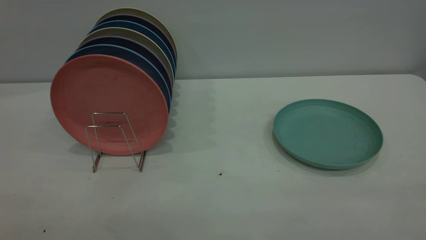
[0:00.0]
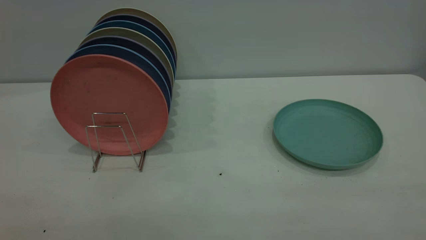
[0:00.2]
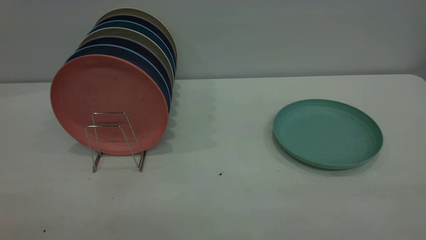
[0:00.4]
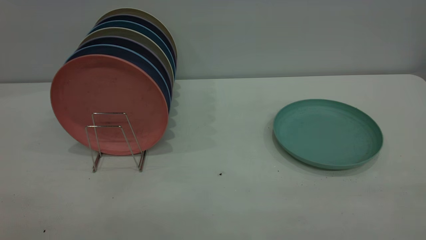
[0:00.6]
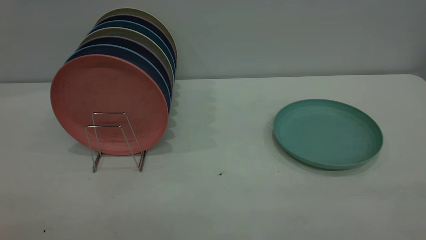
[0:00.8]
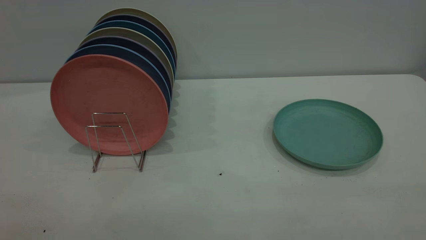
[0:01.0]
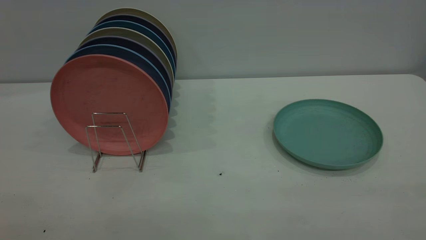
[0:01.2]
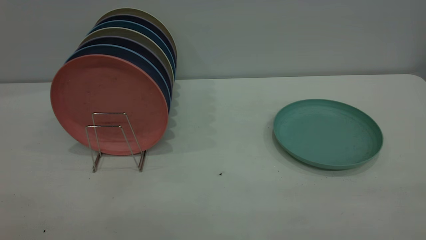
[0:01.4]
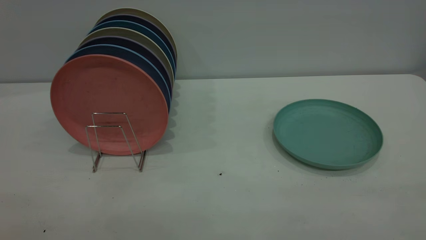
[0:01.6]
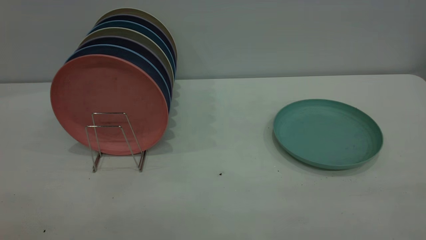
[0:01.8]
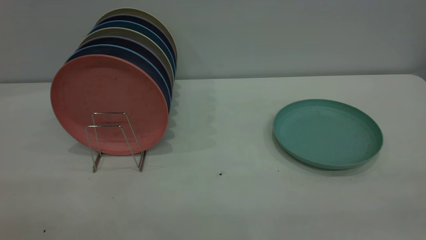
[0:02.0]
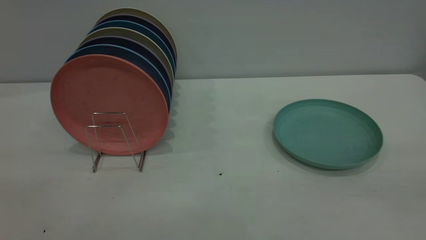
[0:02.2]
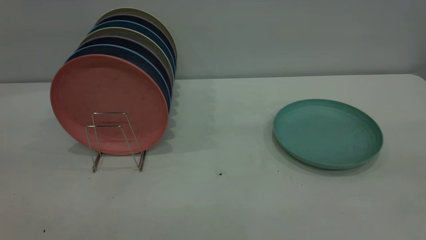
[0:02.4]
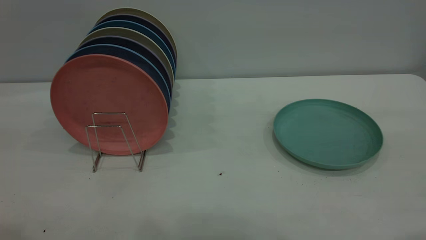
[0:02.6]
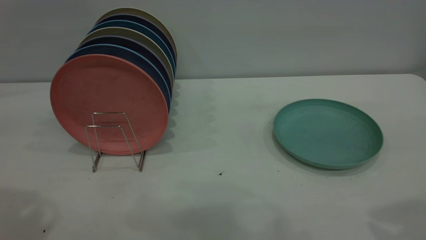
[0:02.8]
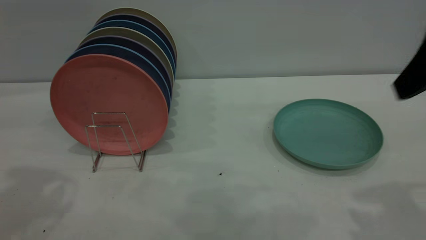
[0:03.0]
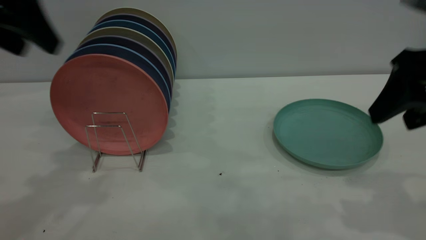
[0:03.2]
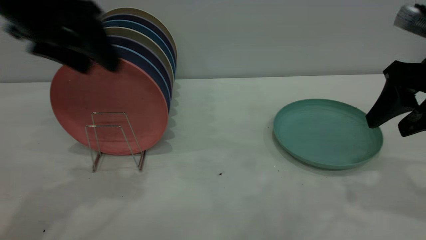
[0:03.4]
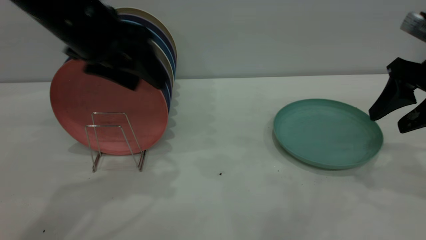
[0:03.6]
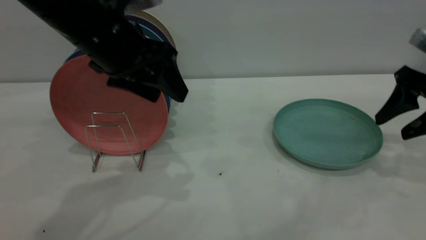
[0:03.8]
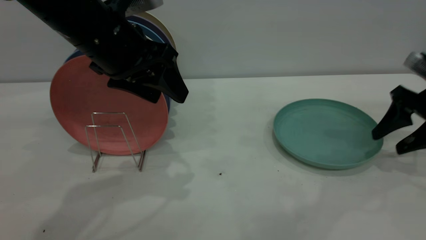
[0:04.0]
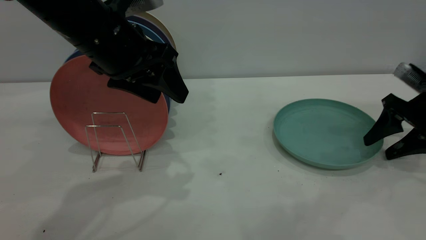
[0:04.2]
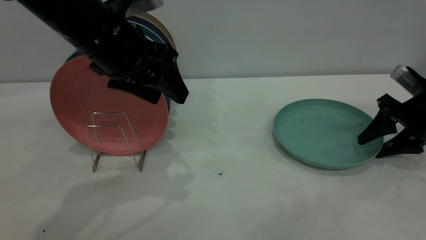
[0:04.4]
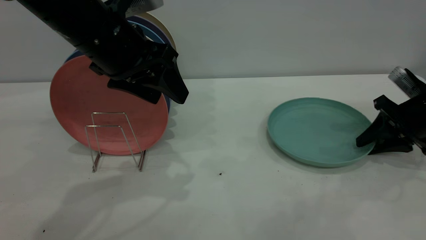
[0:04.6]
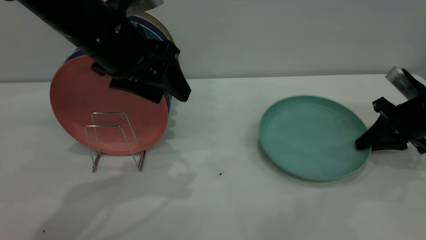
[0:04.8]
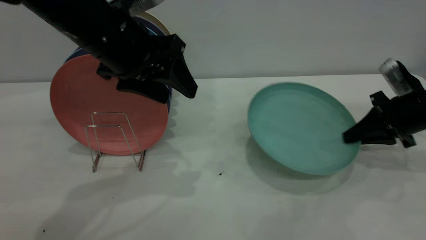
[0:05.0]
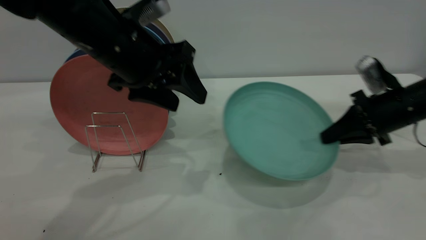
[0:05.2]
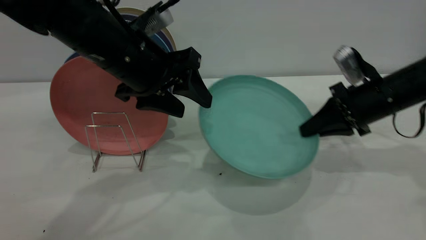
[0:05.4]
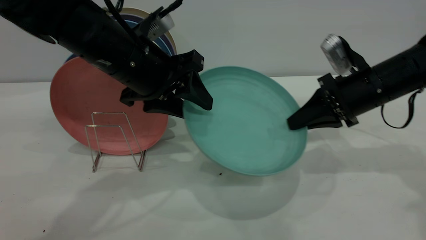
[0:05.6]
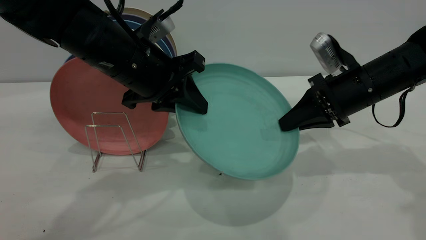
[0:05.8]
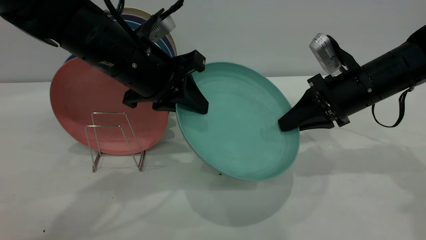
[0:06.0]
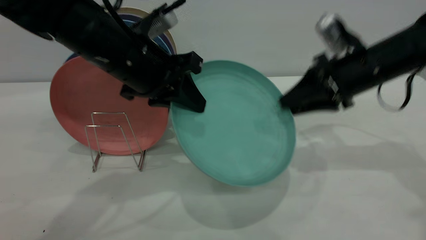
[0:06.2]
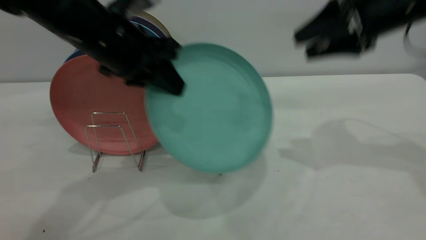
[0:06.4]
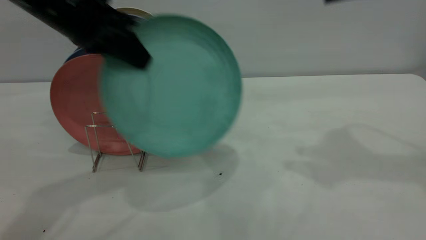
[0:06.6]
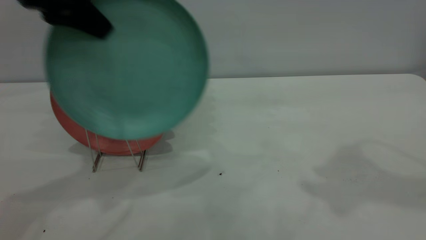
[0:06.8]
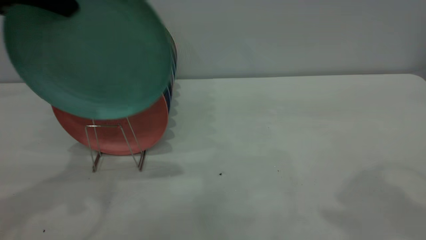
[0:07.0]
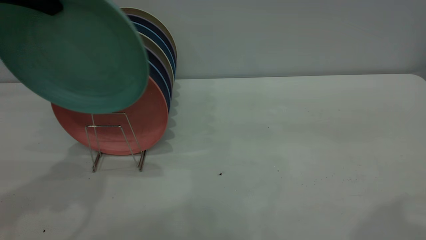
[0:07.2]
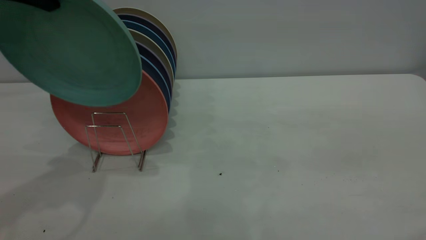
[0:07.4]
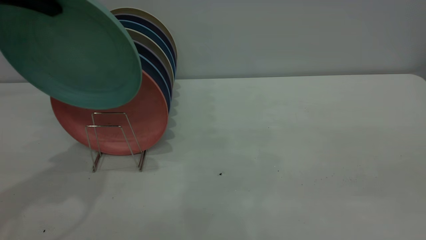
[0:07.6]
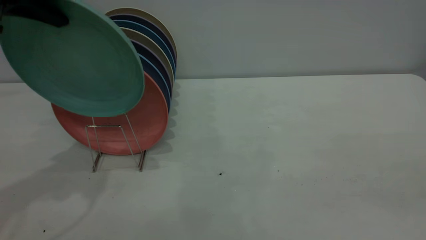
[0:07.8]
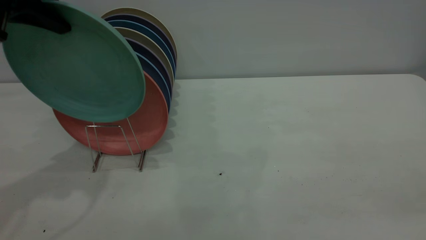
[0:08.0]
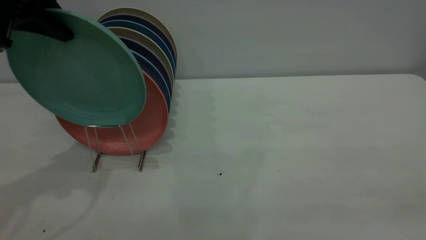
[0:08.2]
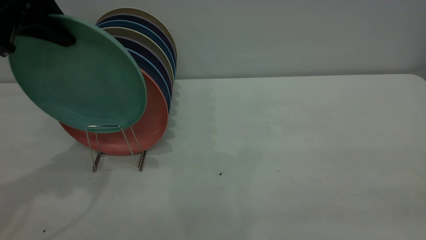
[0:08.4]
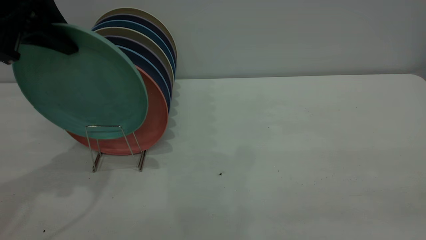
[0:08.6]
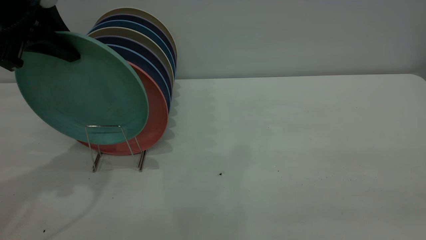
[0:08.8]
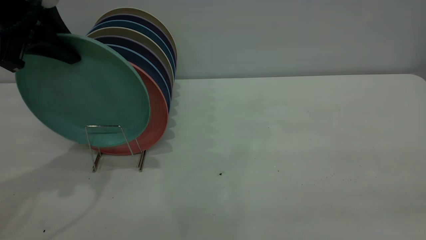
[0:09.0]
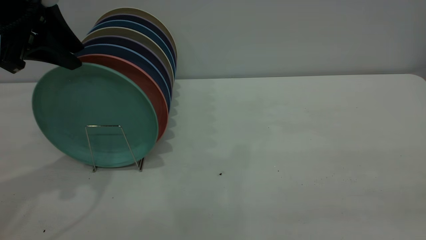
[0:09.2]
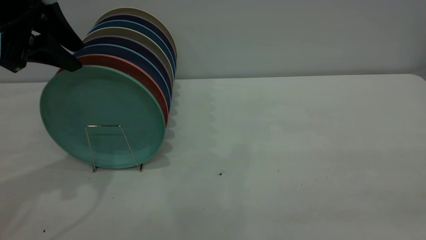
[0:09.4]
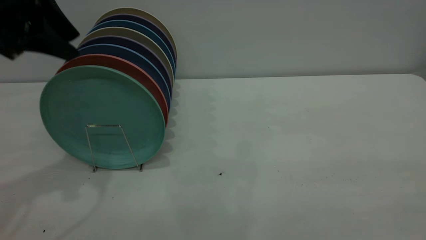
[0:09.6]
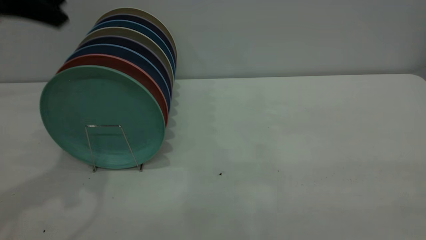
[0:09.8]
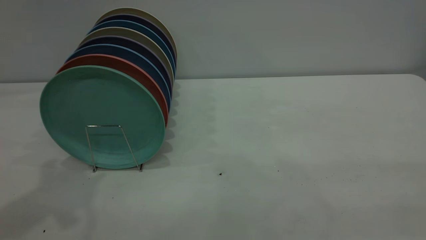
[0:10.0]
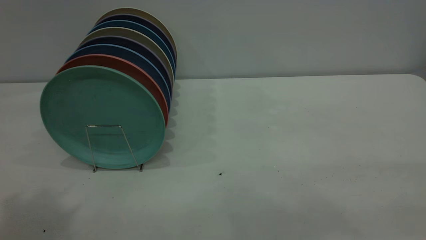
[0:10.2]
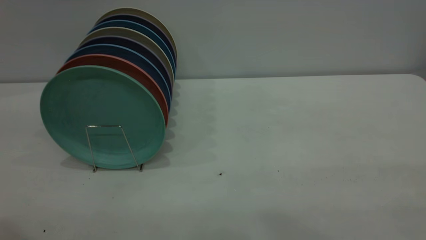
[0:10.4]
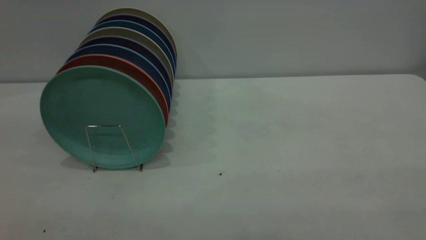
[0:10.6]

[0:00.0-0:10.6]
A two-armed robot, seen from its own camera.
Task of the whole recording: the right gripper grasp the green plate, the right gripper pass the green plate to the left gripper, and the left gripper place the green plate on the plate rack.
Step, 0:00.0 to 0:05.0: Pick up the plate with the right gripper.
Step, 0:05.2 to 0:06.2: Pass the plate from the right gripper to the left gripper.
Step, 0:06.4 to 0:09.6: Place the plate on the shelf.
0:00.0 to 0:01.6: Neither gripper changes place.
0:01.6 to 0:03.0: The right gripper travels forward by approximately 25 cm.
0:03.0 to 0:04.6: The right gripper heads downward, forward and to the right, covering some 30 cm, and closes up; the left gripper heads to the right, downward and forward, covering about 20 cm.
0:04.6 to 0:06.0: The left gripper moves approximately 5 cm, and closes up, while the right gripper travels to the left and upward by roughly 15 cm.
0:06.0 to 0:07.6: The left gripper is displaced upward and to the left by approximately 20 cm, while the right gripper shifts roughly 40 cm backward and upward, and opens.
0:07.6 to 0:09.0: The left gripper moves downward, roughly 5 cm.
0:09.0 to 0:10.6: The left gripper shifts about 30 cm backward and upward, and opens.

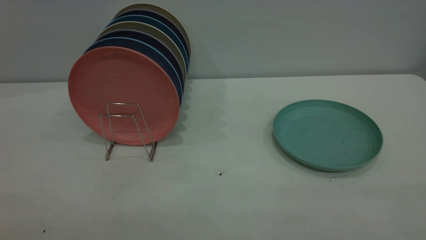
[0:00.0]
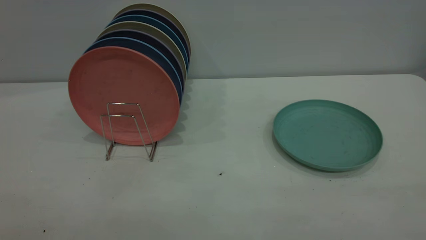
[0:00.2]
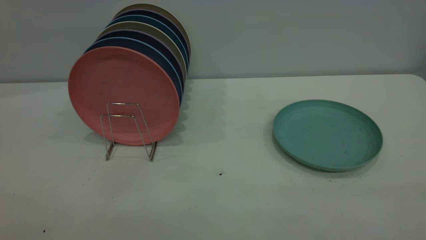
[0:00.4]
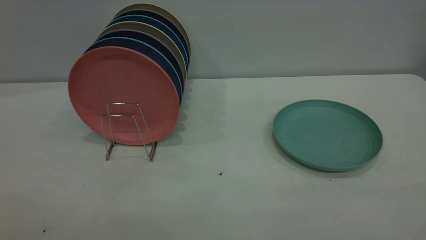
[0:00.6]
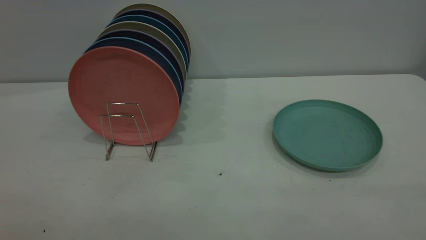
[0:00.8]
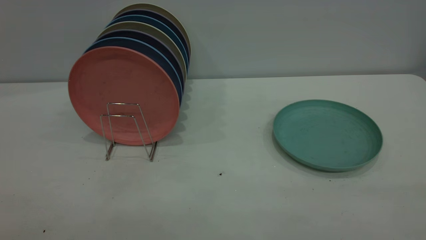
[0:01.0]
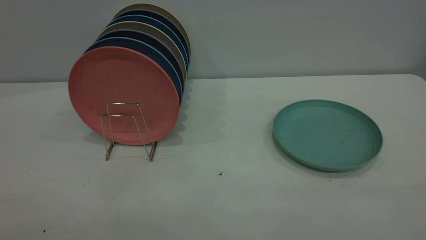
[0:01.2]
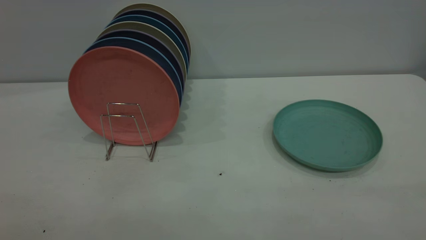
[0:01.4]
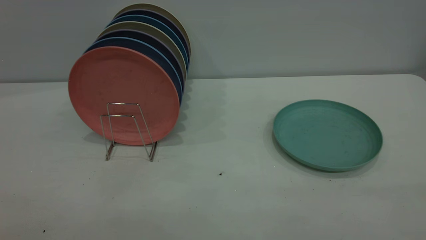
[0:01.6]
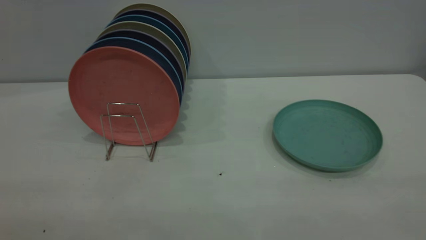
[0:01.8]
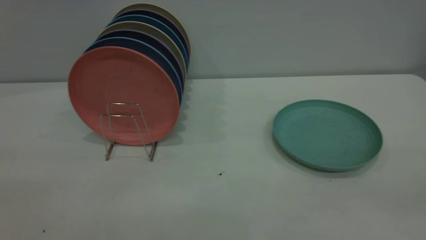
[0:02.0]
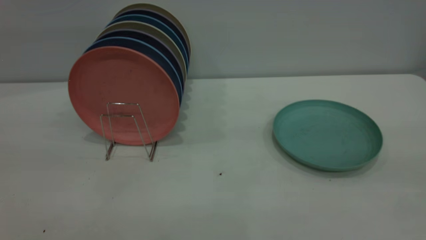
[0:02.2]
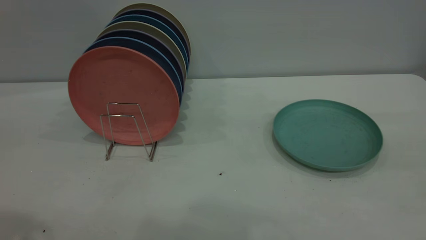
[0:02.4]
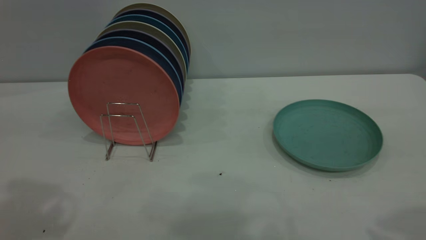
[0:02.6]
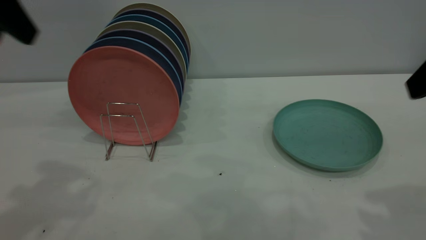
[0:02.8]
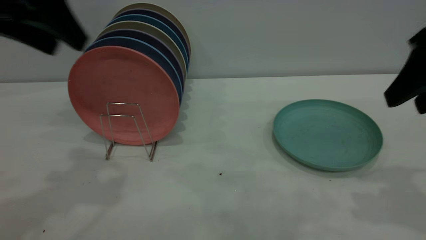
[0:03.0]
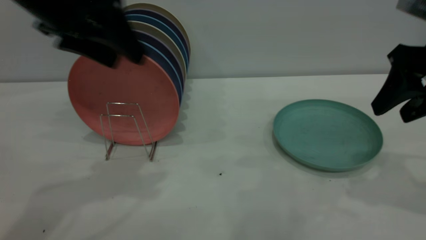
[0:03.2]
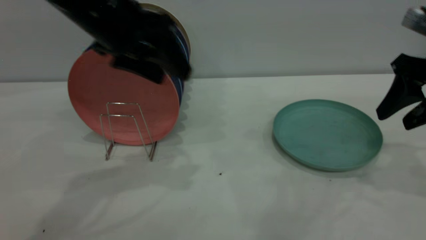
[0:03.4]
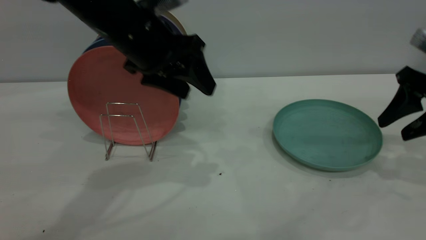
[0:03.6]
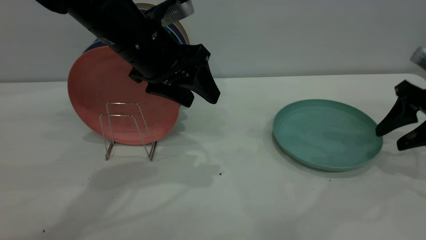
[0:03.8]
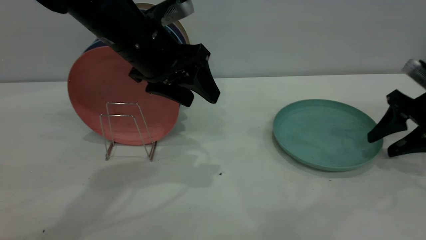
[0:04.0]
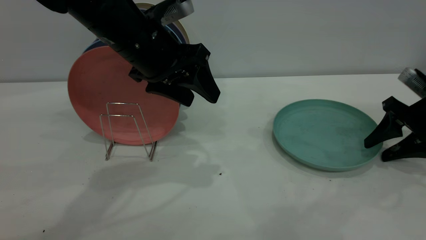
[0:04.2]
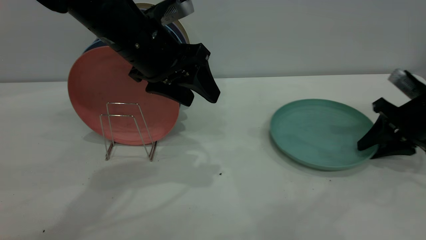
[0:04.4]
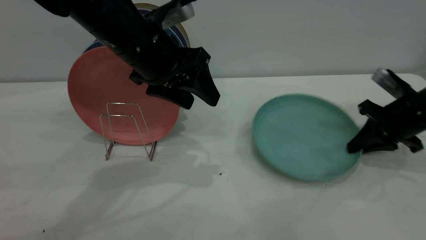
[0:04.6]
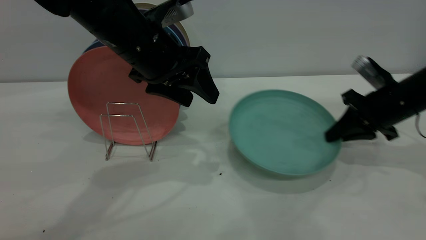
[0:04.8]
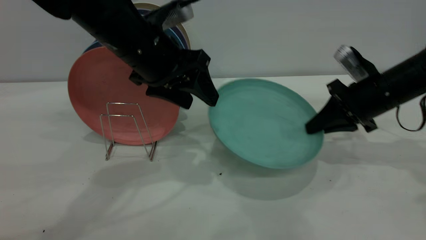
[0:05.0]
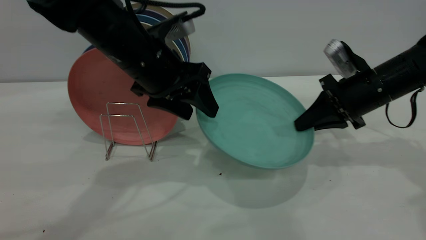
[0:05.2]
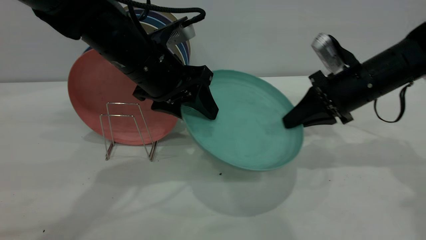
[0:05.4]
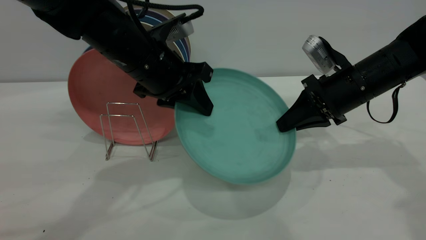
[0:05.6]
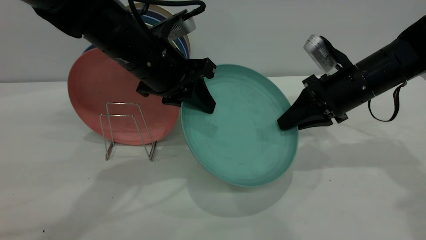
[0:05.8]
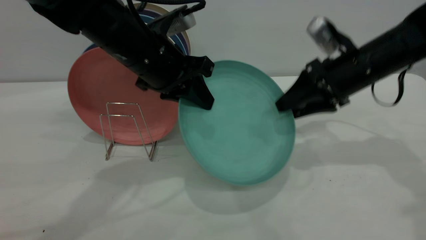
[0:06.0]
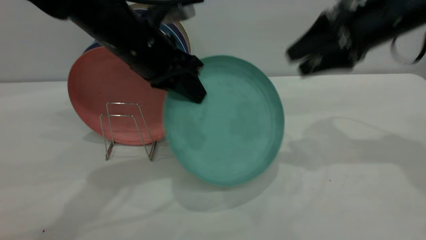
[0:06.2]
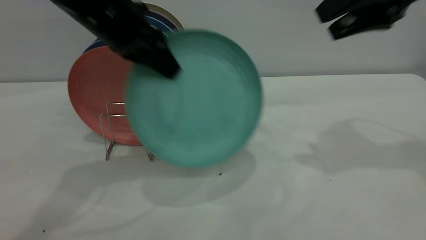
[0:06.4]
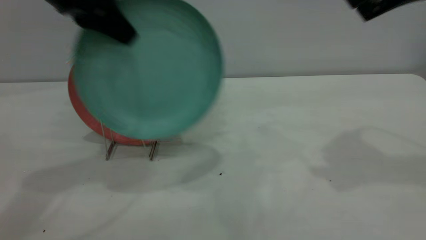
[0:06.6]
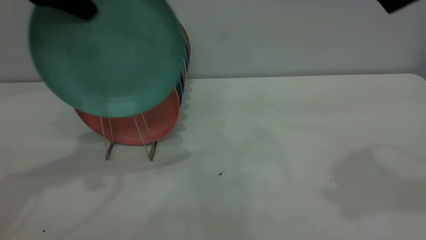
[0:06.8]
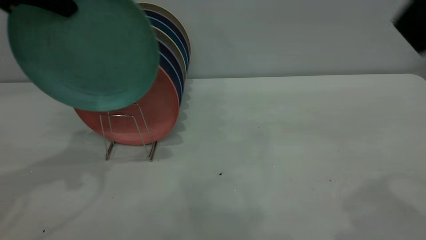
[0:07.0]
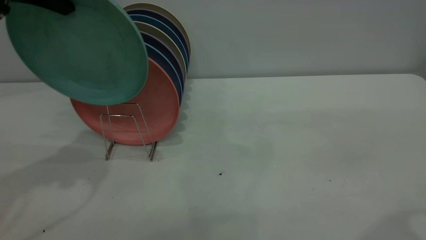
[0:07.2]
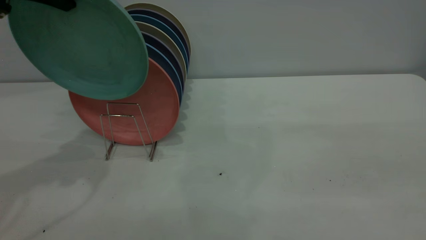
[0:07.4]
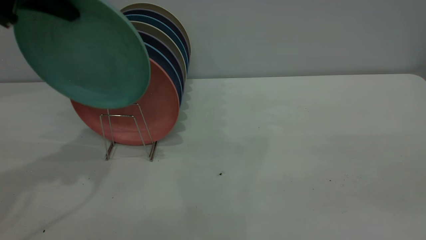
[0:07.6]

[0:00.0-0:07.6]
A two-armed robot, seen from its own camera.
Task of the whole recording: the right gripper grasp the green plate, the right gripper pass the green plate to the left gripper, and the left gripper place the green plate on the plate rack.
Step, 0:00.0 to 0:04.8: Pick up the plate with the right gripper.
Step, 0:05.0 to 0:06.0: Pass the plate from the right gripper to the left gripper.
0:00.0 to 0:01.6: Both grippers stay put.
0:01.6 to 0:03.0: The grippers both shift forward by roughly 30 cm.
0:03.0 to 0:04.6: The right gripper goes some 20 cm downward and forward, and closes. Meanwhile the left gripper is displaced to the right, downward and forward by roughly 15 cm.
0:04.6 to 0:06.0: The left gripper closes up; the right gripper shifts about 15 cm to the left and upward, and opens.
0:06.0 to 0:07.6: The right gripper is displaced backward and upward by approximately 35 cm. The left gripper goes approximately 20 cm to the left and upward.
